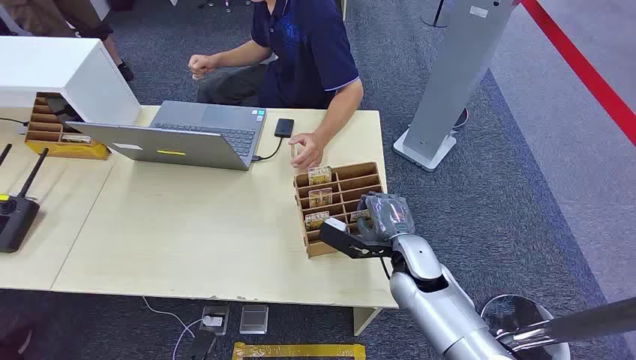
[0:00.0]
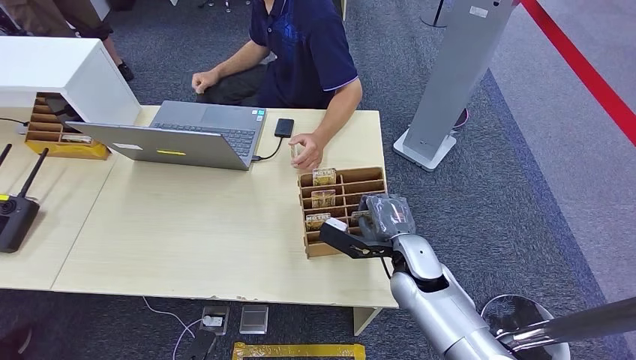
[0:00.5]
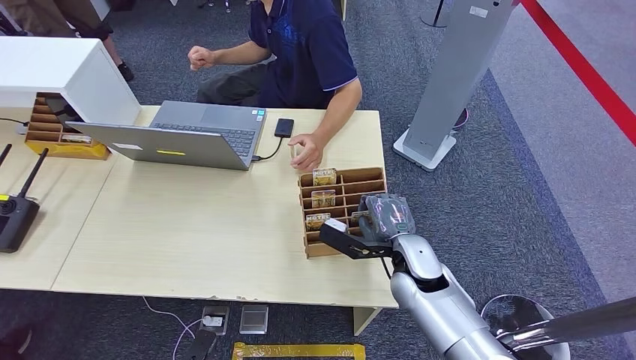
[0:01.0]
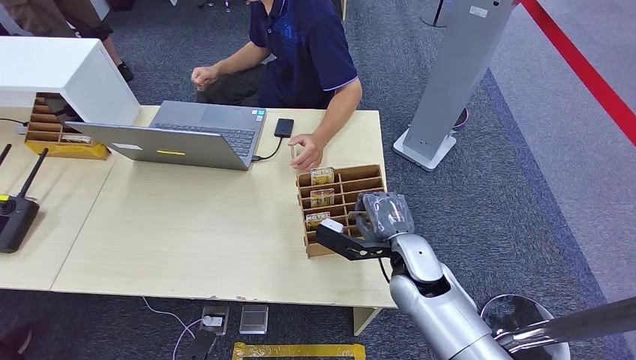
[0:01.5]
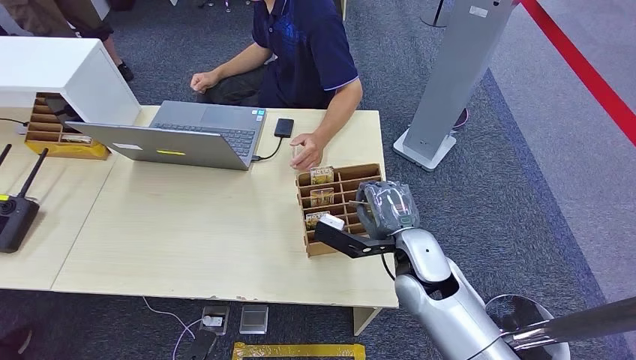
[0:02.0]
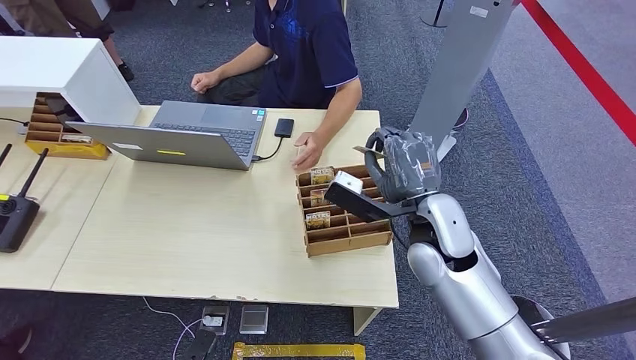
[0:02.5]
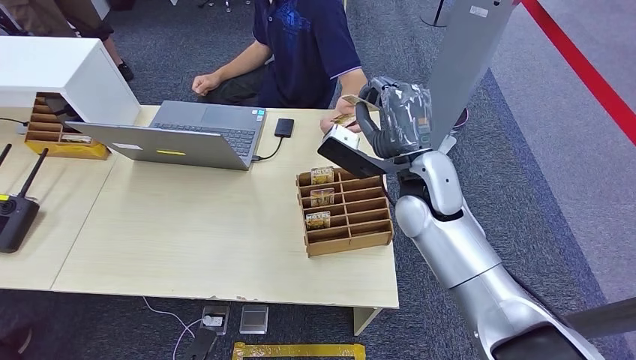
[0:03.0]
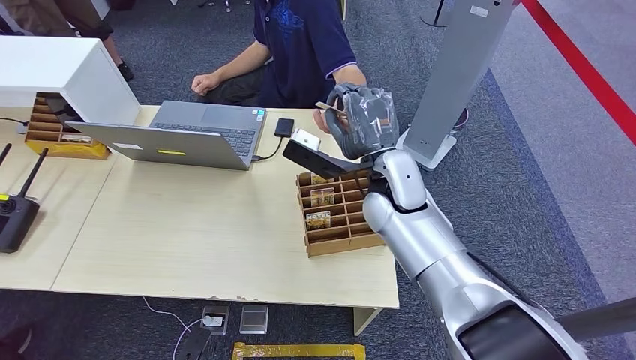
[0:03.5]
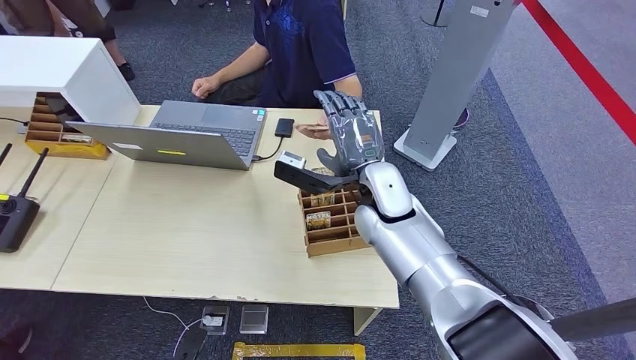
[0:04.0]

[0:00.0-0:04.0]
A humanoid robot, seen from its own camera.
Step, 0:00.0 to 0:01.5: Pick up the room card from the card holder.
Step, 0:02.5 to 0:04.0: Hand the room card to the target.
0:02.0 to 0:04.0: The right hand travels forward, upward and to the left by approximately 15 cm.
